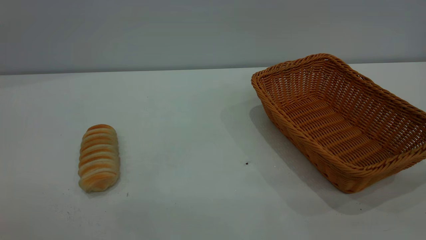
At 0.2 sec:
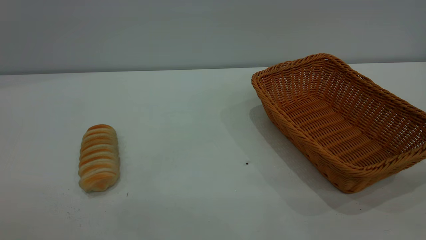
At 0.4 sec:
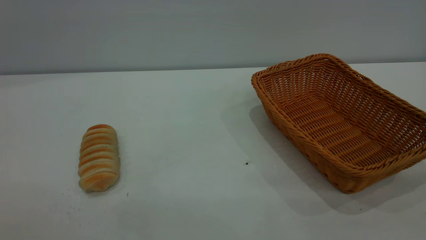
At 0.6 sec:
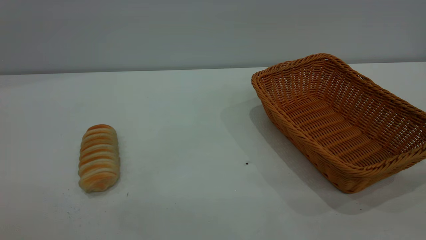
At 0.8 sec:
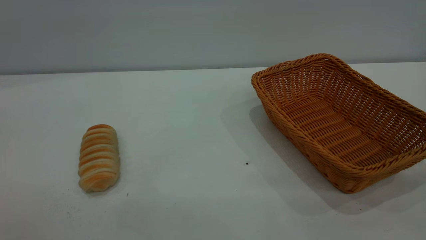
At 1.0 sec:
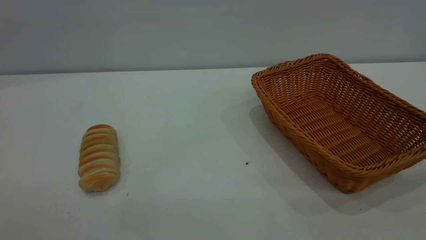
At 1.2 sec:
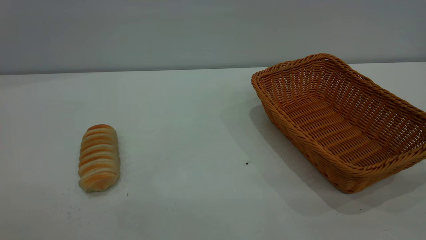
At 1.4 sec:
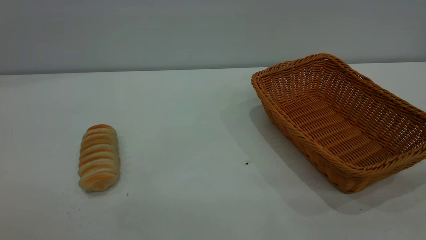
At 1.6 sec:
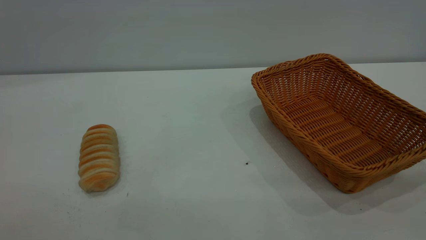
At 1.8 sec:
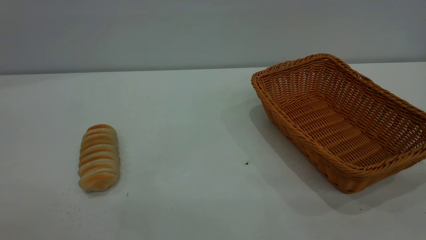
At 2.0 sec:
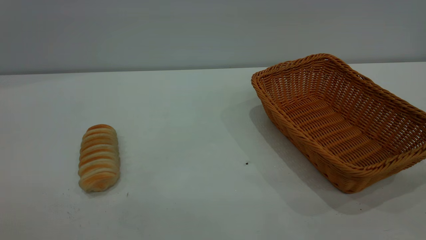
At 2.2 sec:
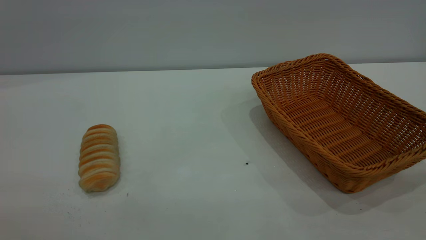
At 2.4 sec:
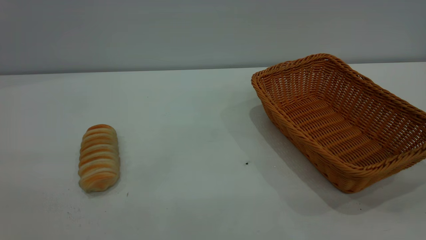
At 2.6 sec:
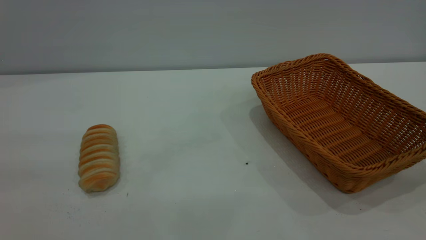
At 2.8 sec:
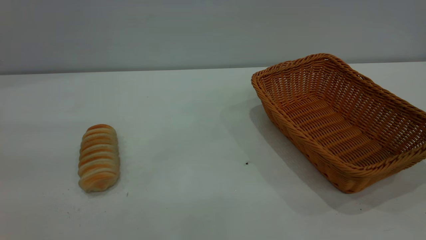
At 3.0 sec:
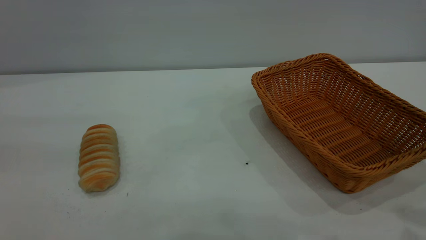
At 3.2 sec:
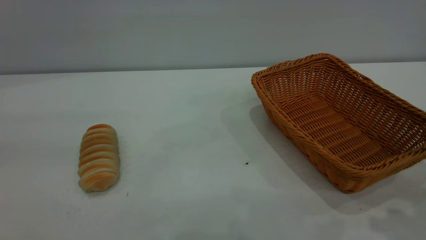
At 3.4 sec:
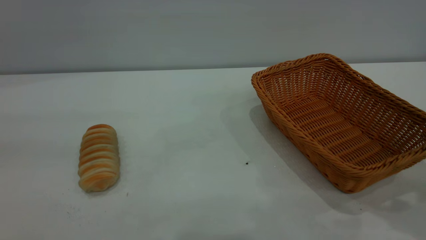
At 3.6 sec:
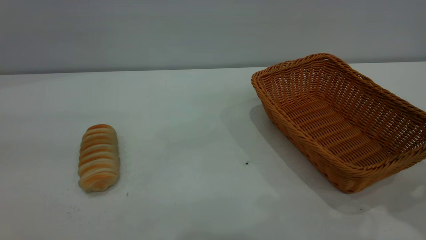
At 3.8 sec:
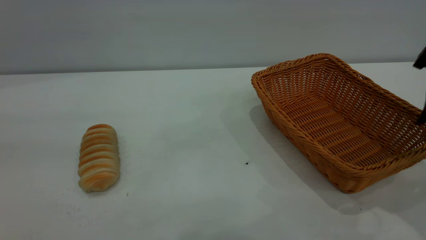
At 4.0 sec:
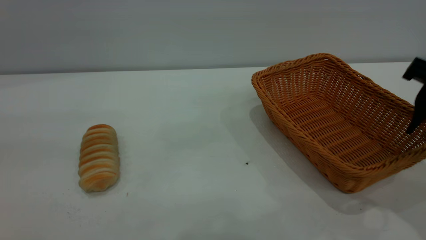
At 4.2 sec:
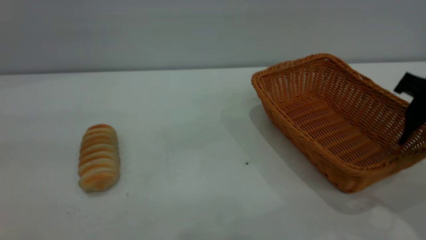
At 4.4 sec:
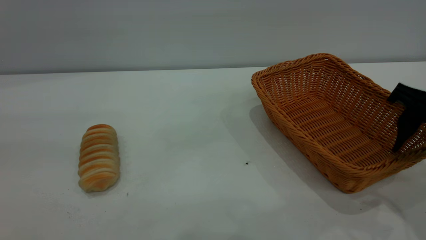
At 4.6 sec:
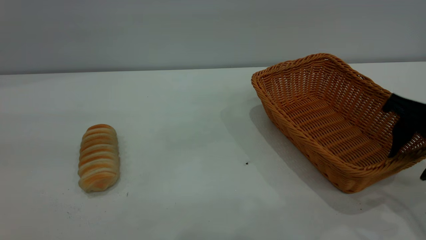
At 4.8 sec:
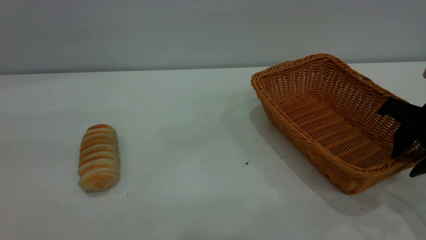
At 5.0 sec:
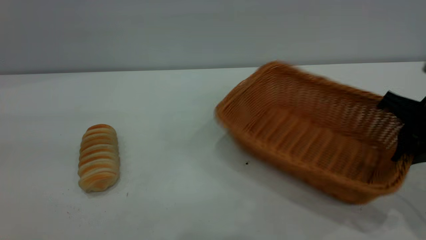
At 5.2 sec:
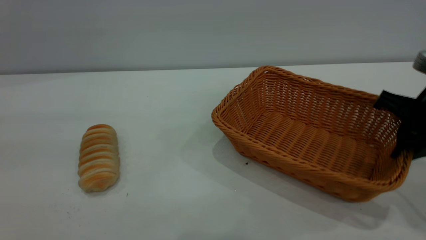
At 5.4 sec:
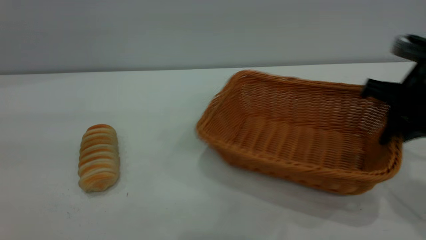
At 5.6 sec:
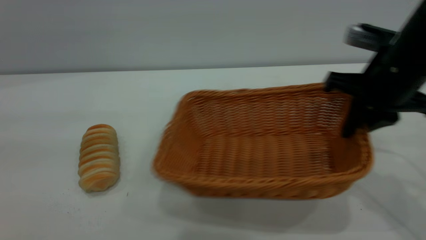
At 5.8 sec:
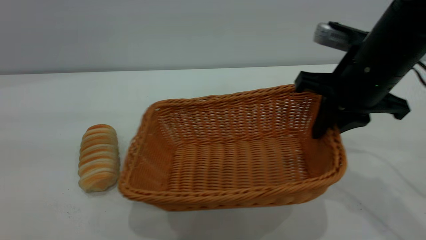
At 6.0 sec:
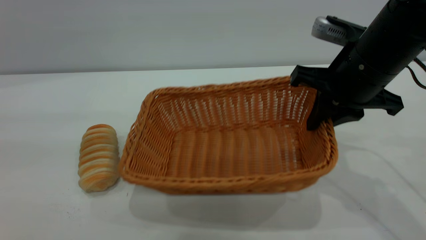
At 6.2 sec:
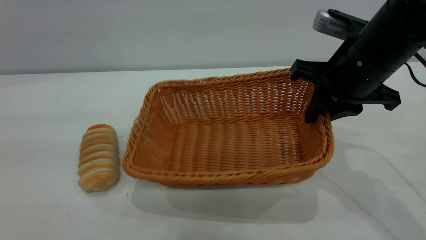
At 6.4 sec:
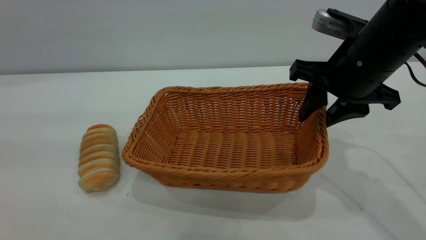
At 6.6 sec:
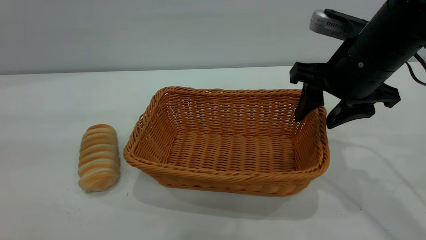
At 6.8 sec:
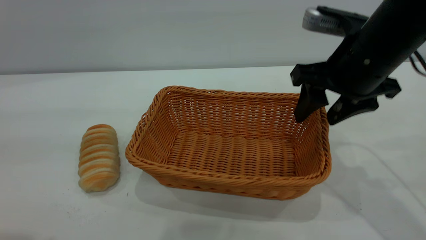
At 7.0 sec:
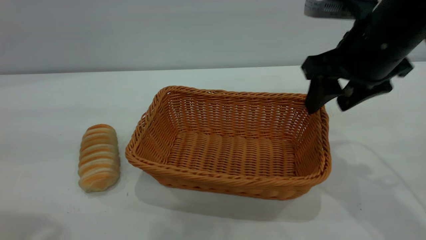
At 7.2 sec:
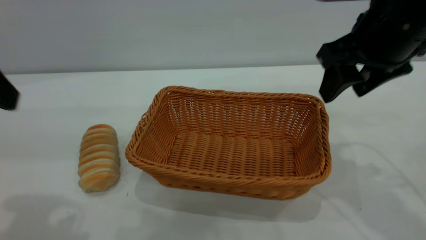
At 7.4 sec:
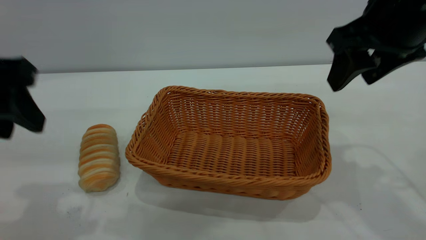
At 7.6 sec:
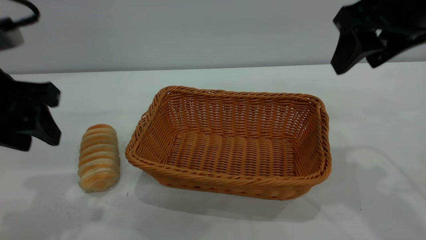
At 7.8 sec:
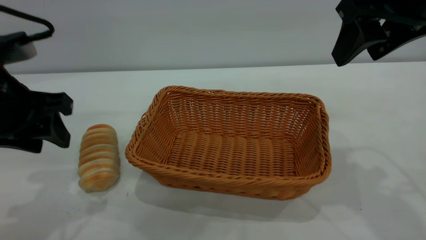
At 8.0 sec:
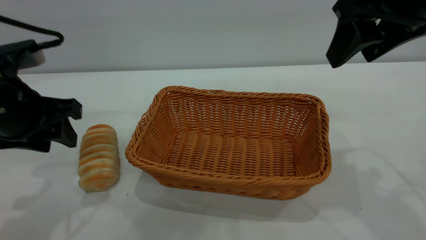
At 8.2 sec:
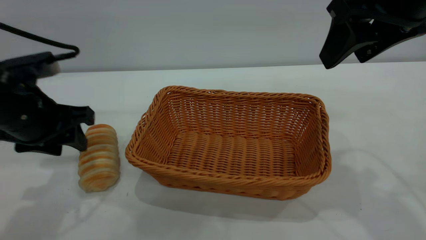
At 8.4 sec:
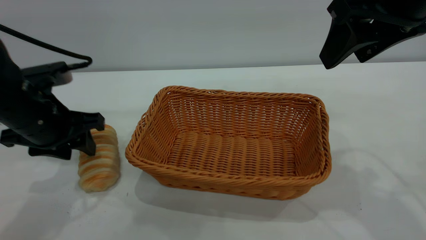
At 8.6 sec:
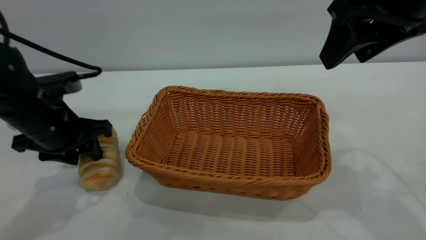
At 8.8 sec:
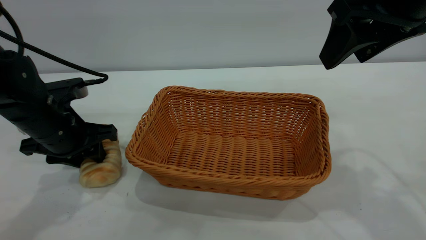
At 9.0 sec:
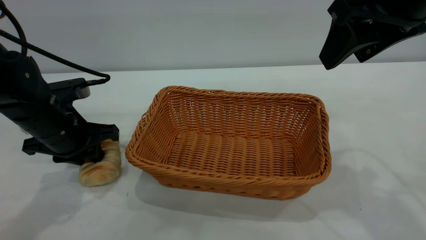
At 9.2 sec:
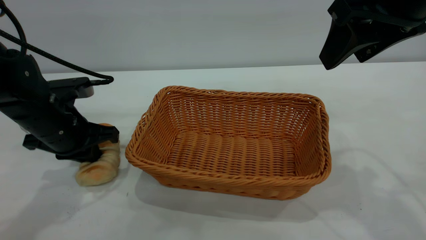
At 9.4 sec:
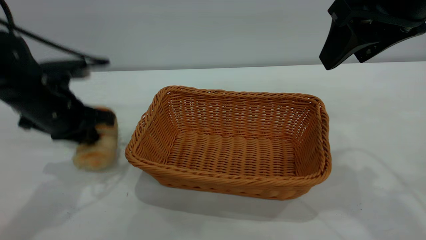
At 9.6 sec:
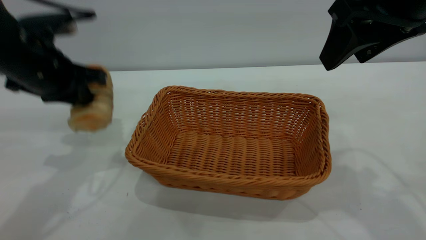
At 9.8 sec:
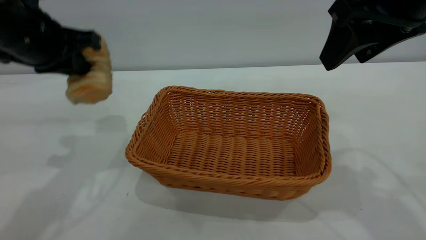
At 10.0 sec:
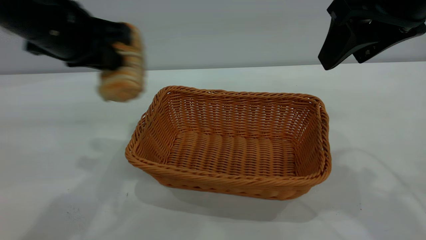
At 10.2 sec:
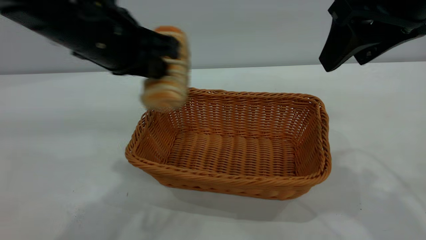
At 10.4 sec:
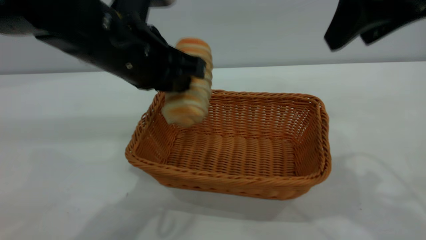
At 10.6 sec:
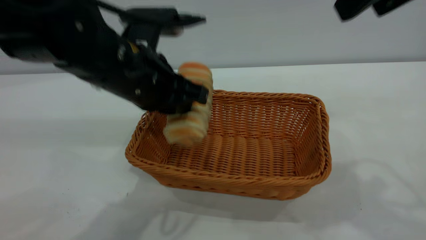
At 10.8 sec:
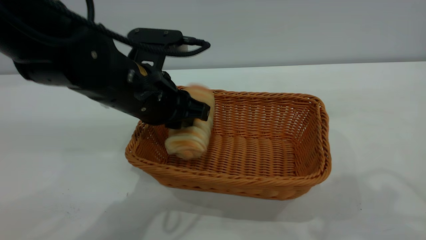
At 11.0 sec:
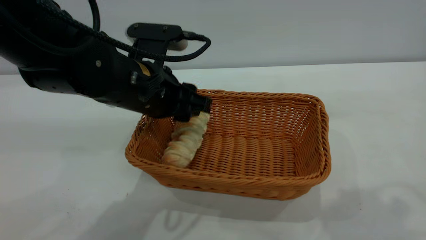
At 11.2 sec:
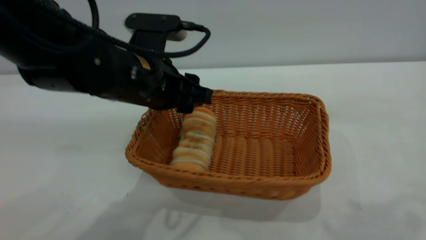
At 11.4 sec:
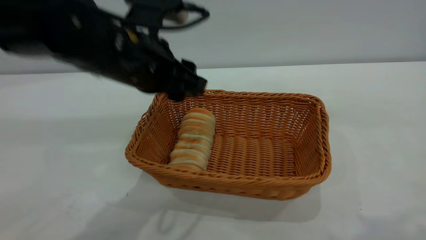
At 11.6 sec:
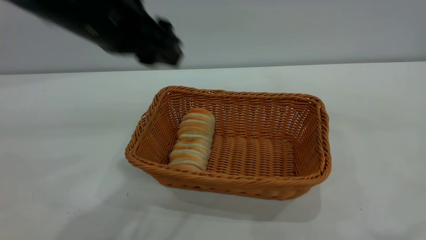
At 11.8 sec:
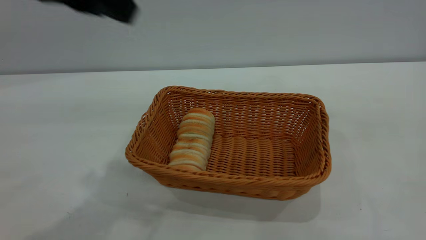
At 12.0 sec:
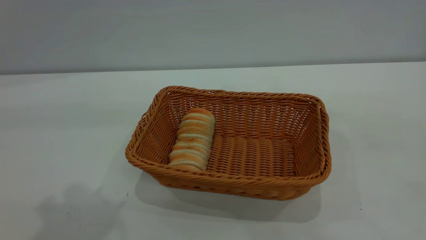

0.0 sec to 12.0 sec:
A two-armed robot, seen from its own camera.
Task of the whole recording: One hand grasps the yellow basket and places it in the middle of the table, while the other hand picks up the long bread and puts it into the yellow basket.
Step, 0.0 sec to 7.0 sec: Move the basket to the center of view.
Step, 9.6 sec to 11.4 sec: place the bread into the basket.
0.0 sec to 1.6 sec: Neither gripper changes place.
3.0 sec to 4.4 sec: The right gripper travels downward and forward by some 15 cm.
4.4 sec to 6.0 sec: The right gripper shifts some 10 cm to the left, and closes its fingers.
6.0 sec to 7.6 sec: The left gripper travels downward and forward by about 20 cm. The right gripper goes approximately 10 cm upward, and opens its fingers.
7.6 sec to 9.0 sec: The left gripper heads downward and forward, covering some 15 cm, and closes its fingers.
9.0 sec to 10.4 sec: The left gripper shifts approximately 20 cm to the right and upward.
10.4 sec to 12.0 sec: The right gripper moves backward and upward, some 20 cm. The left gripper heads upward, to the left and backward, covering some 20 cm, and opens.

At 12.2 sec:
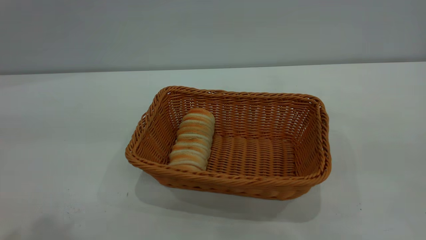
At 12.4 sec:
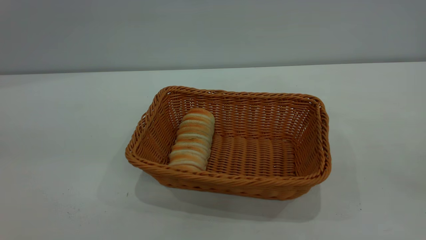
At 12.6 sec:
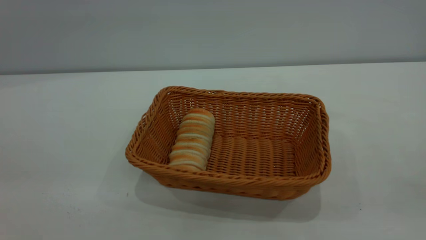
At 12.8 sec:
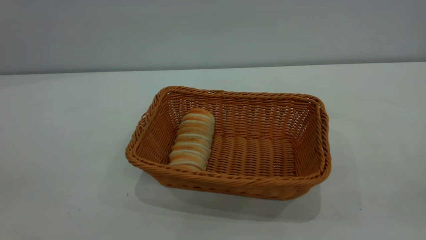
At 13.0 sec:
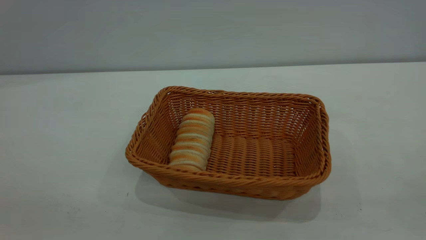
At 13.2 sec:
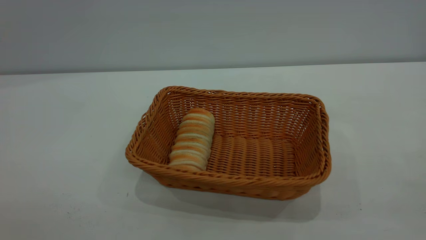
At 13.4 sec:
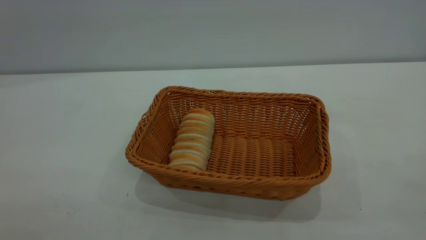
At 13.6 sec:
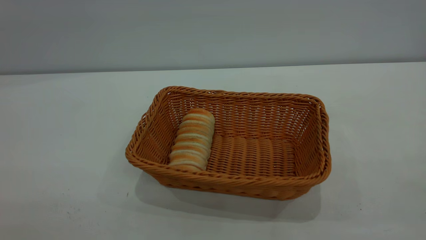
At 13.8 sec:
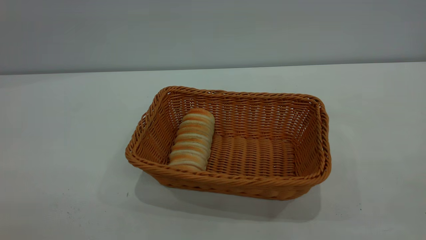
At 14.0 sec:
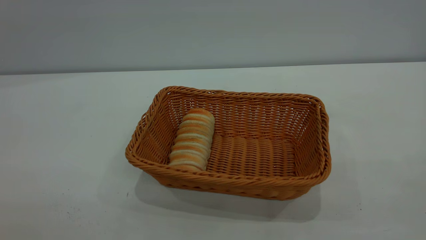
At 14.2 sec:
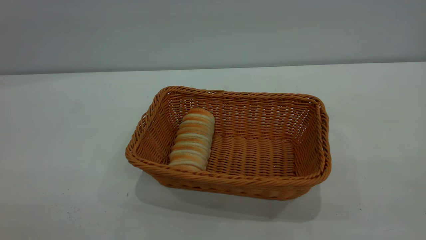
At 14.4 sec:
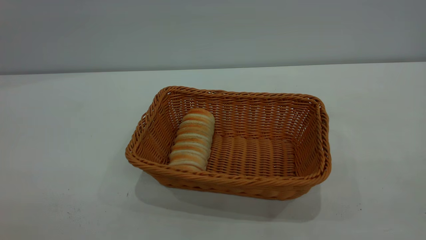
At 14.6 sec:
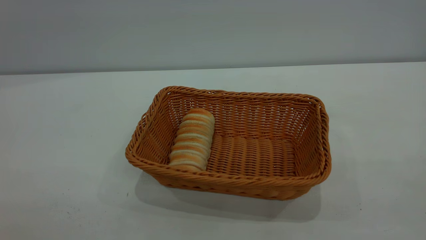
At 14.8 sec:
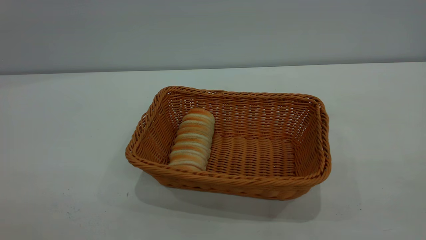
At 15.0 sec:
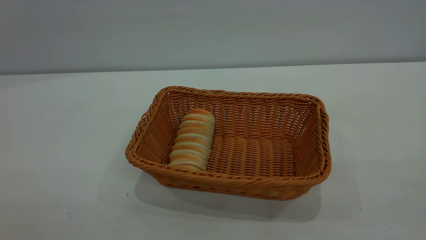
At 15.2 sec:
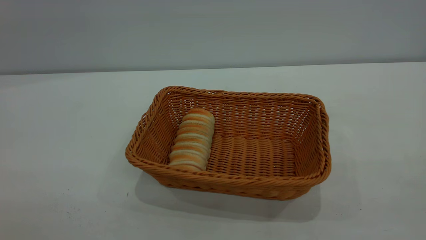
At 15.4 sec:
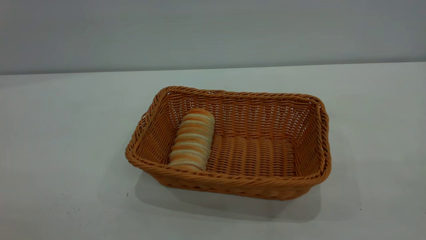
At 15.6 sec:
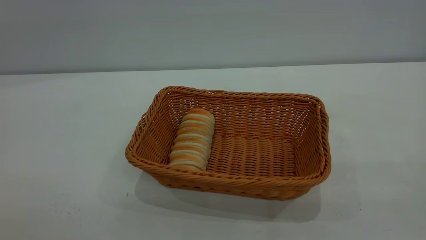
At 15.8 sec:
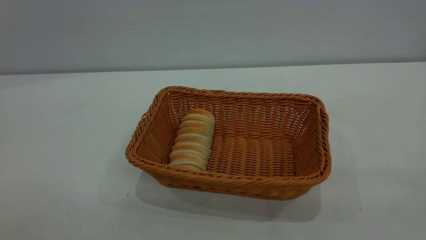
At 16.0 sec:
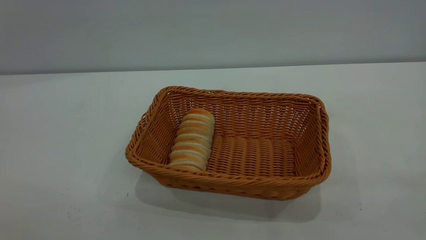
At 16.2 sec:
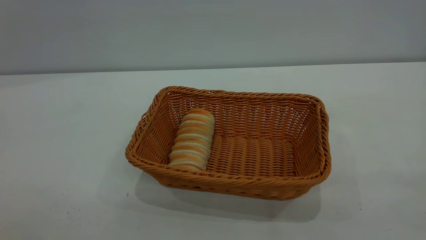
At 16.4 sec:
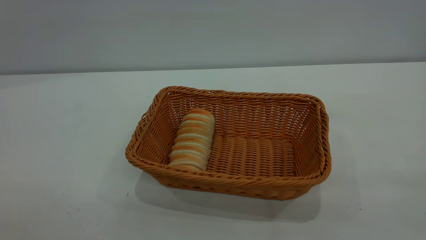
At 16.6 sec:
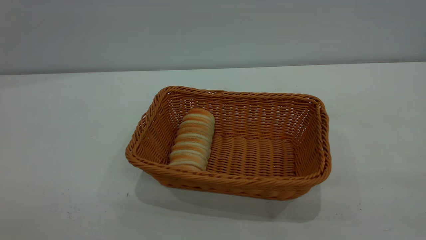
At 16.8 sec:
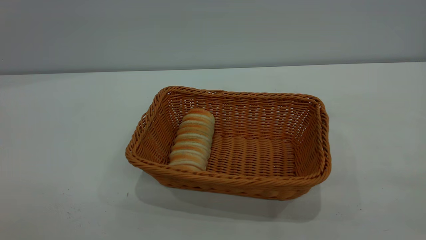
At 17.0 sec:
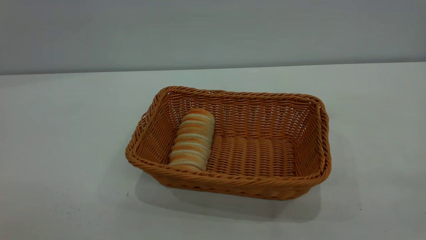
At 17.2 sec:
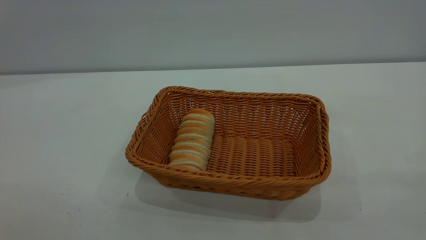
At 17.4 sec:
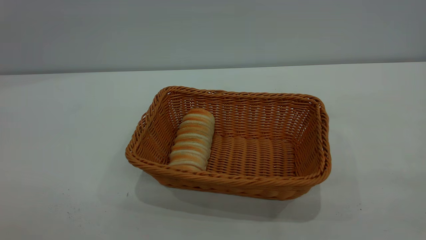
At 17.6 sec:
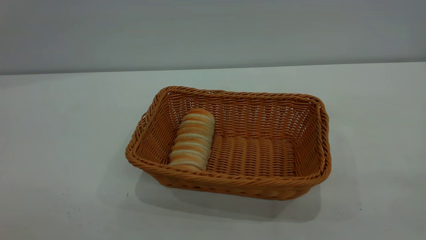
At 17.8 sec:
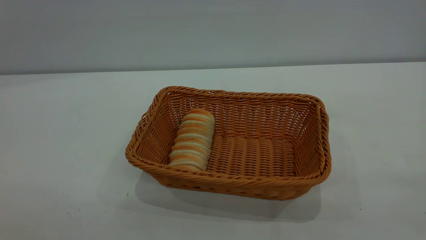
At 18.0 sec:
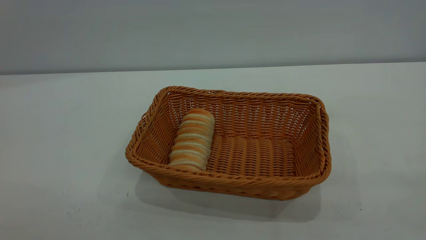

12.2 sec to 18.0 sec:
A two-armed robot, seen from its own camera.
Task of the whole recording: One hand grasps the yellow basket and places it in the middle of the table, while the other hand picks up the long bread and puts it into the yellow basket.
13.6 sec to 15.0 sec: Both grippers stay put.
16.6 sec to 18.0 sec: Neither gripper changes place.
